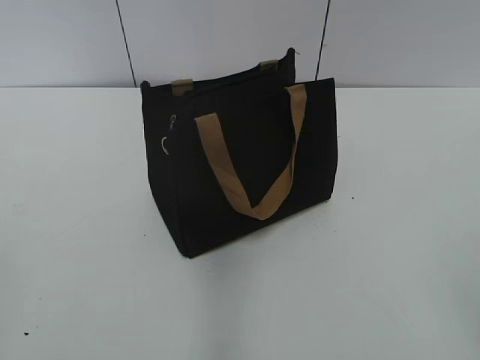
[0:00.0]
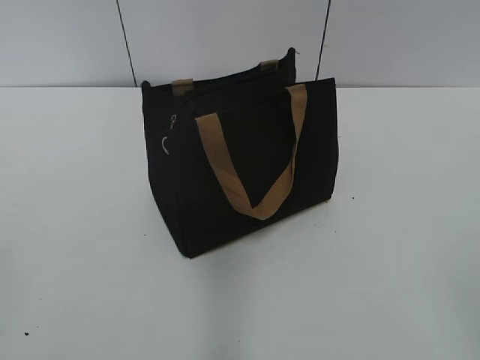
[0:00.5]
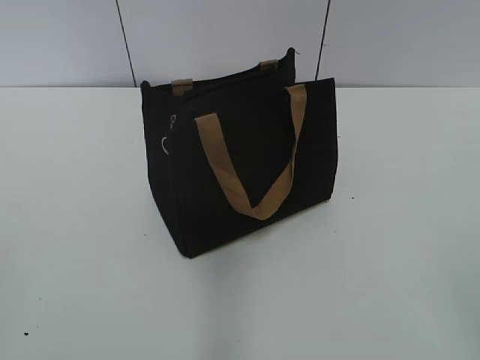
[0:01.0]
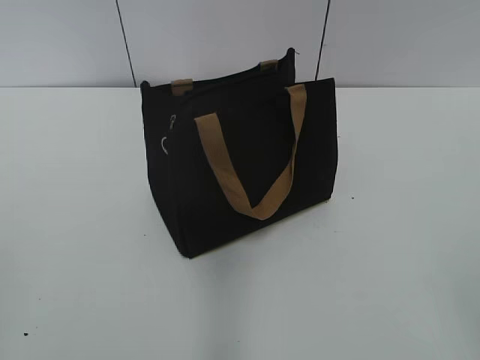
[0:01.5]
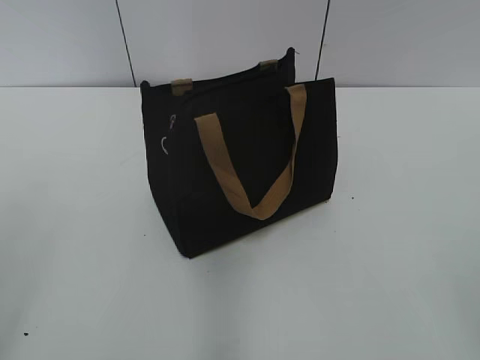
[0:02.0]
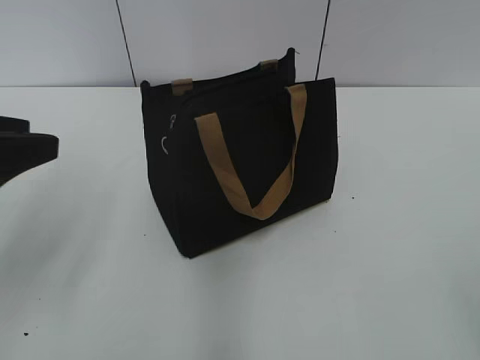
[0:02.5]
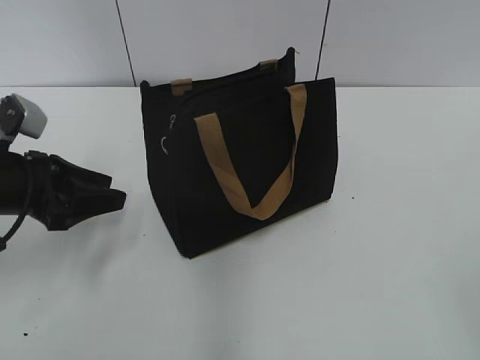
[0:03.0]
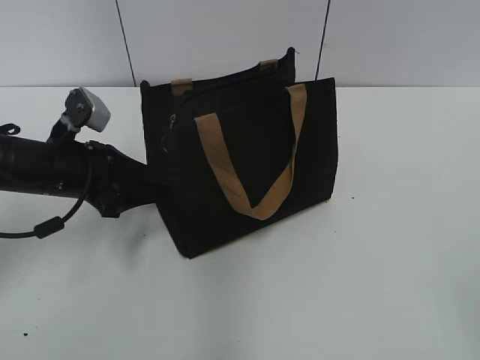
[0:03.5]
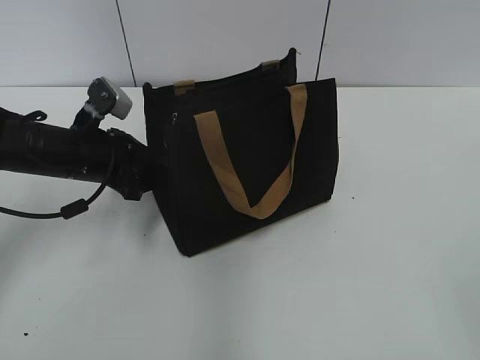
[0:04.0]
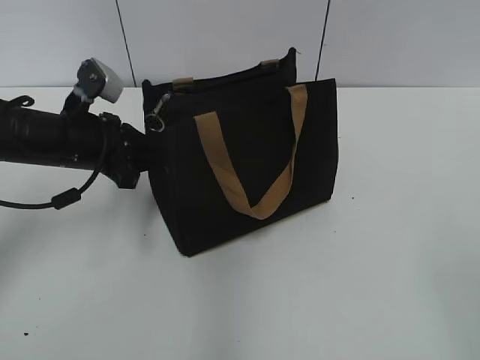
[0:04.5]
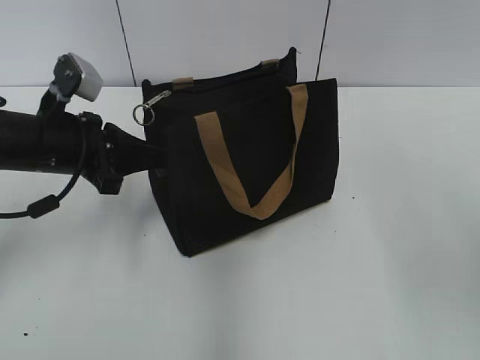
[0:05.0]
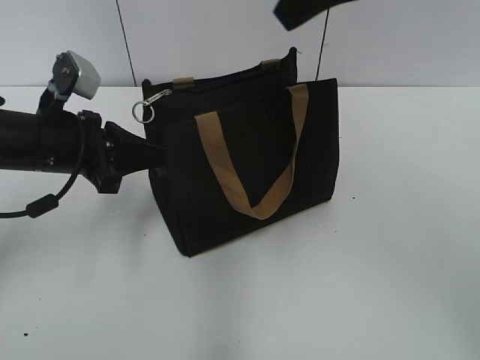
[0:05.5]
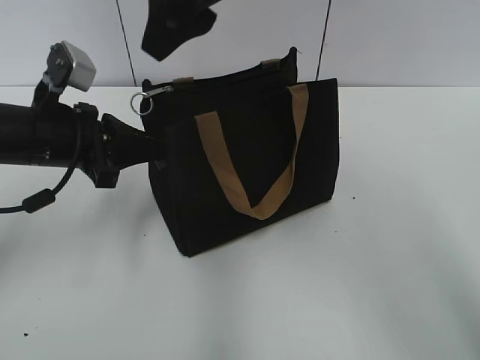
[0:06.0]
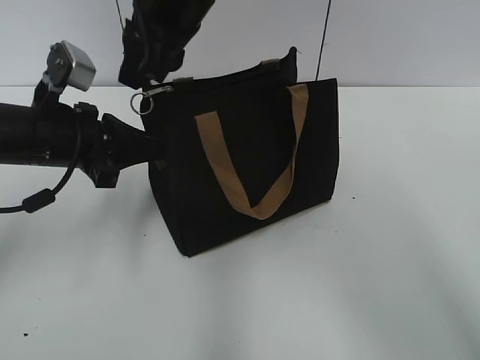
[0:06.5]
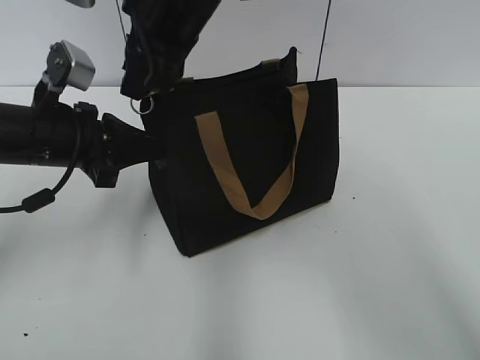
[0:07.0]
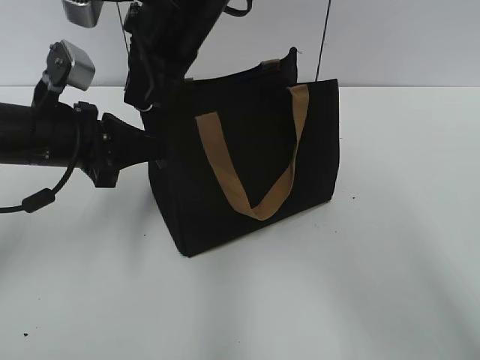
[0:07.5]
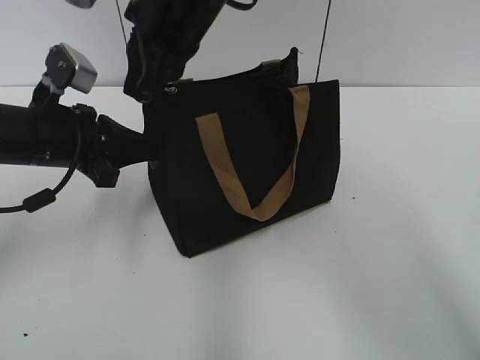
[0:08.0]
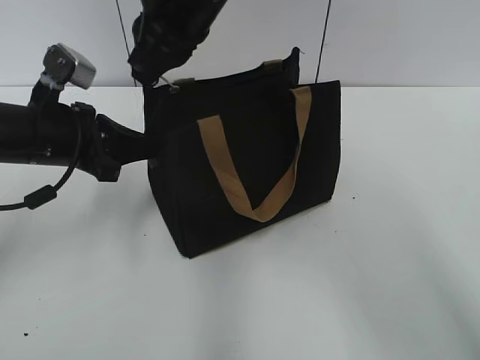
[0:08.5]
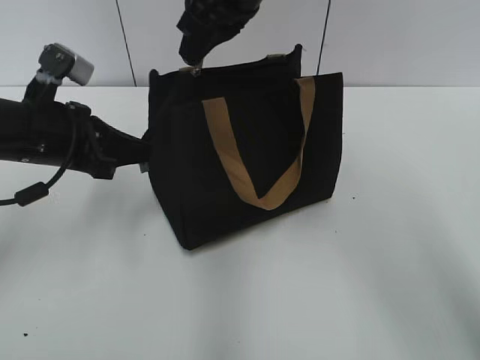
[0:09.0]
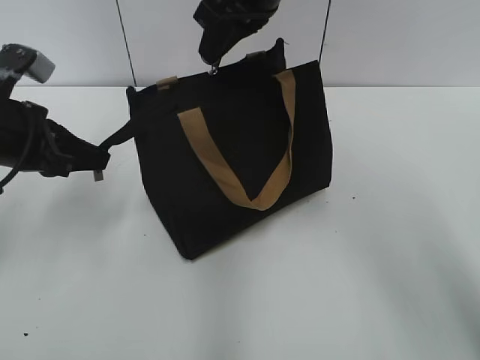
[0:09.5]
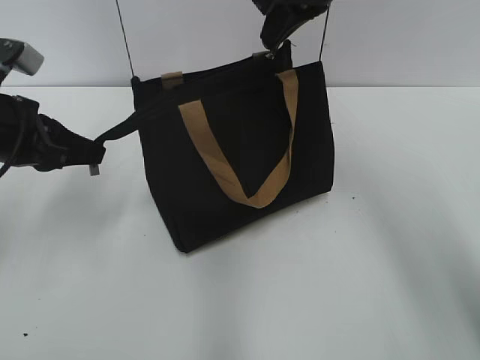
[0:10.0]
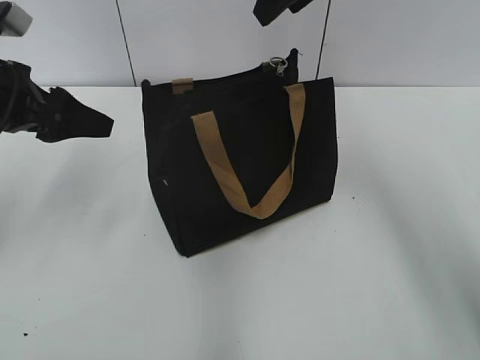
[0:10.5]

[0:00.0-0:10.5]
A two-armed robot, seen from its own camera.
Step, 0:00.0 to 0:10.0: Zip up the bag with your right hand.
0:02.0 to 0:04.0: The left gripper moves forward and downward, some 35 cm.
0:04.0 to 0:06.5: The right gripper travels forward and to the left by about 50 cm, while the left gripper heads upward, covering about 5 cm, and closes up.
0:06.5 to 0:08.5: The right gripper closes.
0:08.5 to 0:10.5: The left gripper moves roughly 5 cm, and opens. The right gripper moves to the right and forward, about 15 cm, and opens up.

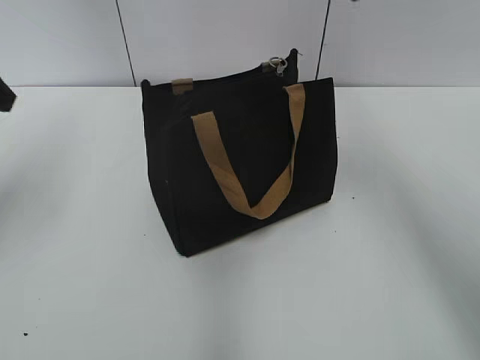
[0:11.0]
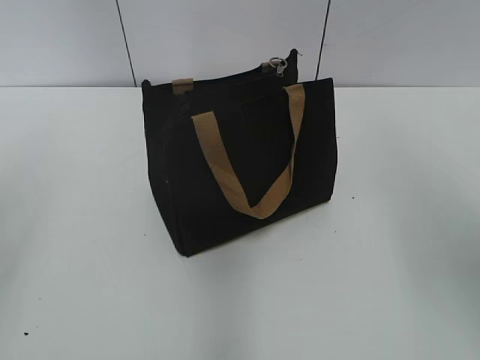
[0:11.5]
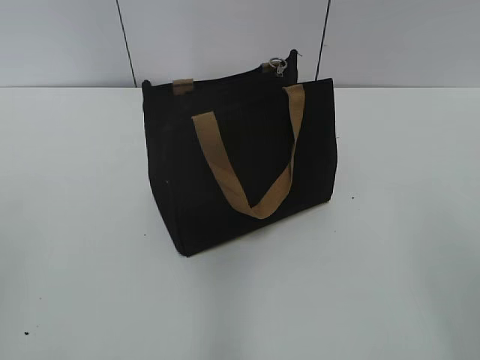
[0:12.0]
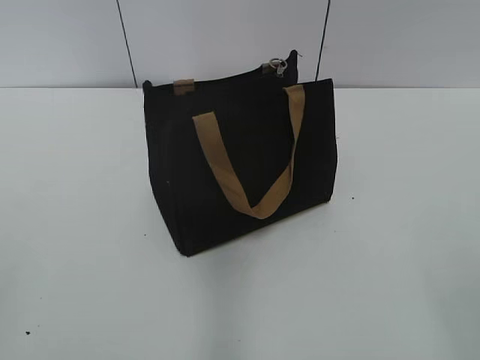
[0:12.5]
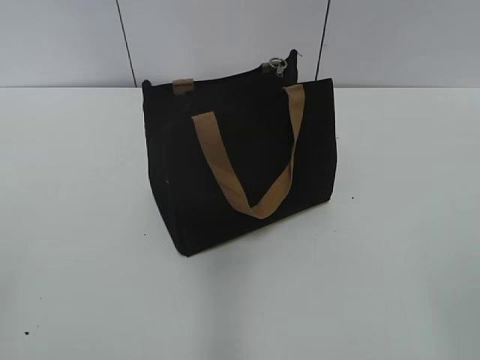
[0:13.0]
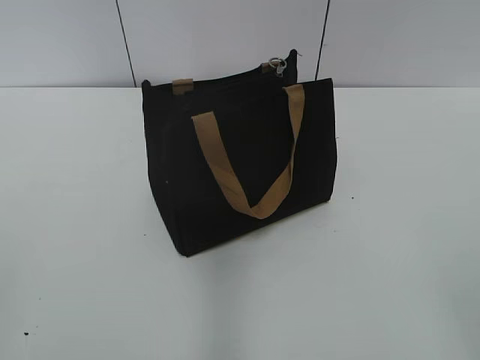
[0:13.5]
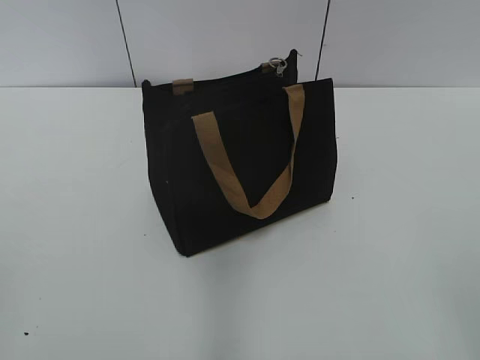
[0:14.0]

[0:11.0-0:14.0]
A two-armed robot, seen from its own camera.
0:11.0 to 0:12.5: The two grippers go about 35 cm backward.

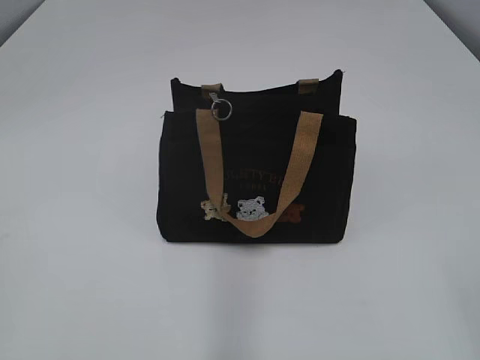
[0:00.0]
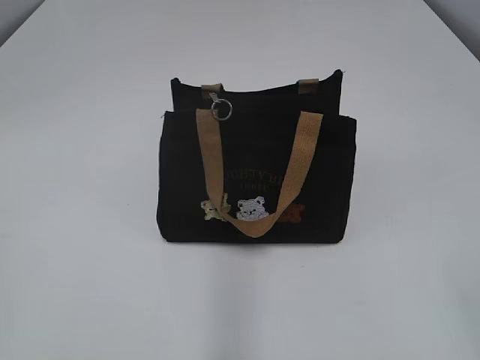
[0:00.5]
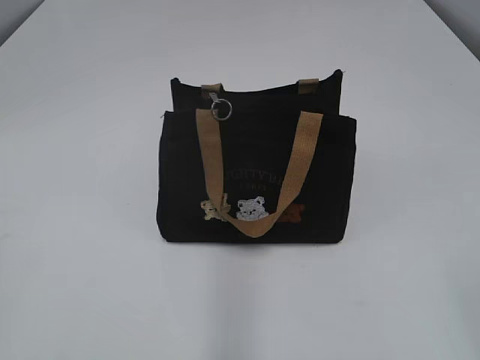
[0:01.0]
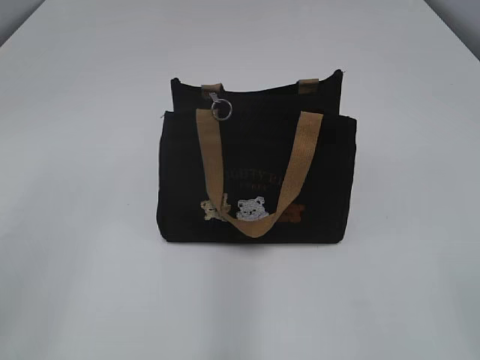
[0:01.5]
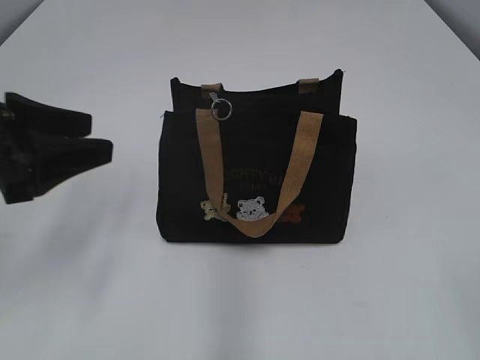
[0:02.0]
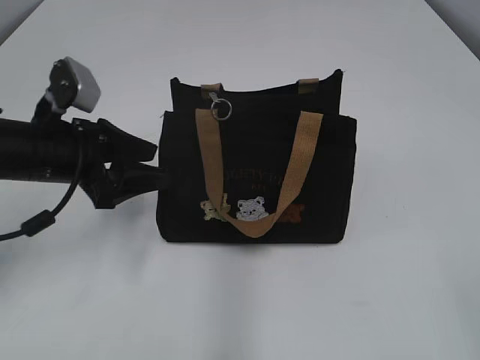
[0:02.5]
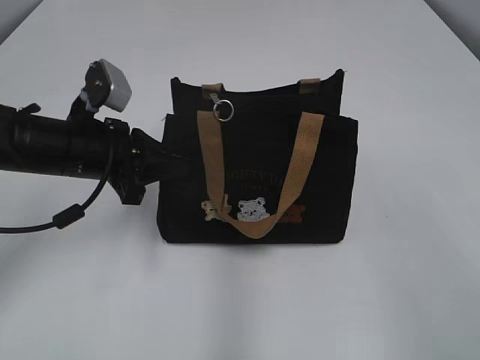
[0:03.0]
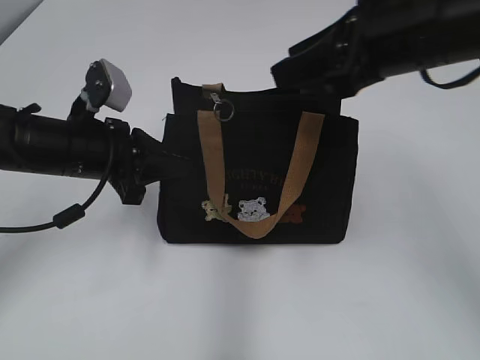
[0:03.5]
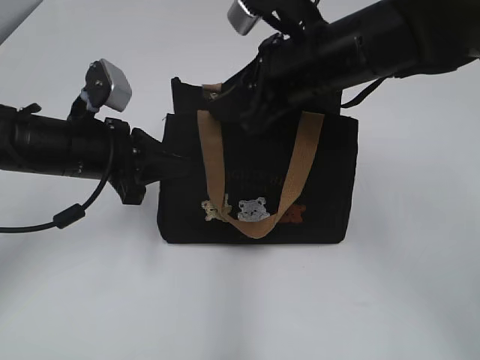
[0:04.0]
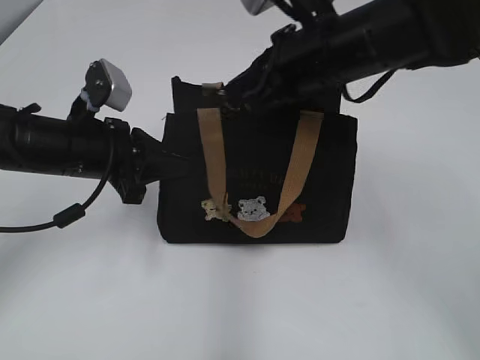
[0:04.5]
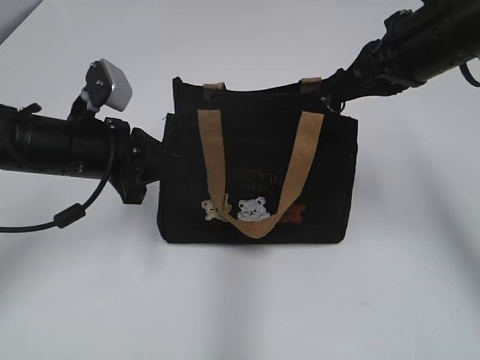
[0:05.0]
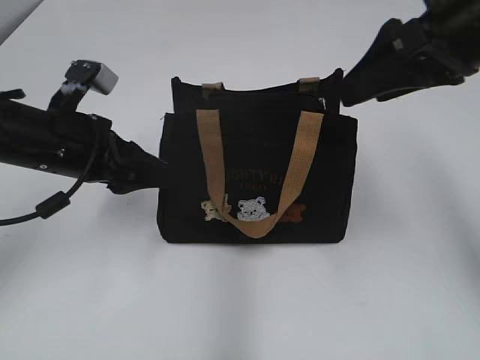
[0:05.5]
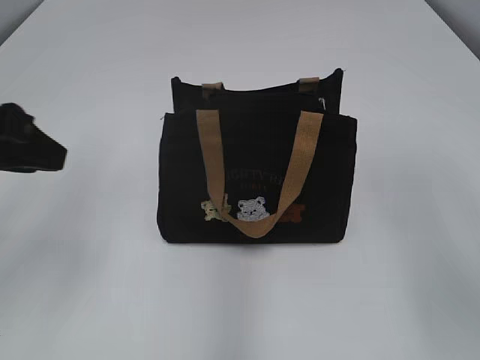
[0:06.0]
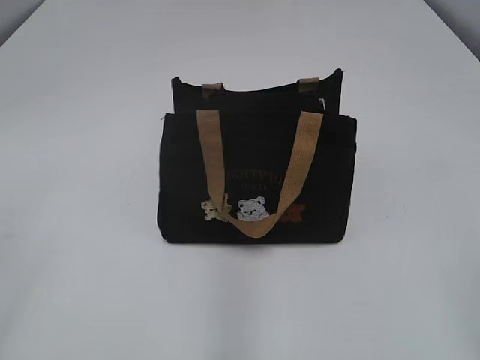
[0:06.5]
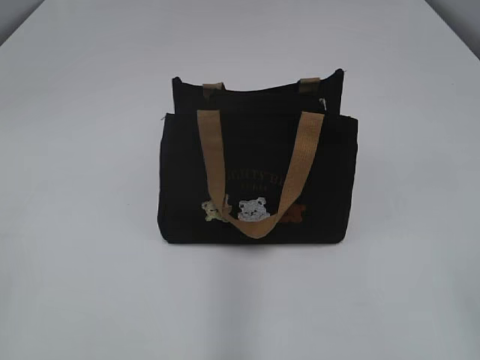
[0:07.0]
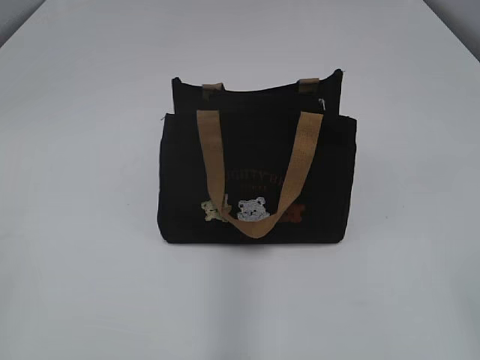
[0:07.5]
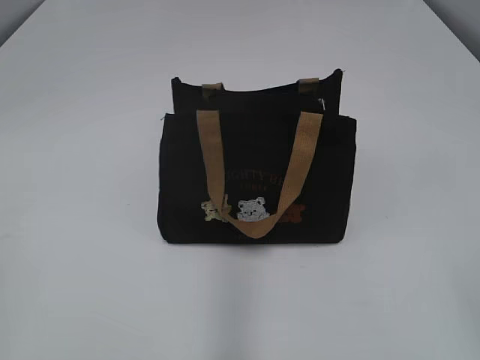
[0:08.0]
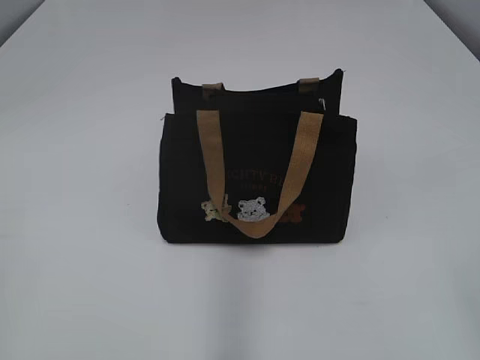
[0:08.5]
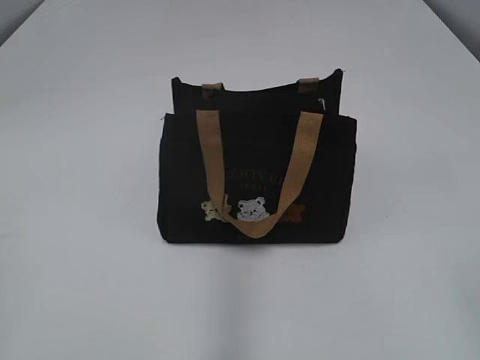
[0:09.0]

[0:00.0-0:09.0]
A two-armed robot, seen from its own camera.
Step, 0:00.0 to 0:05.0: Pull open the zipper with your right hand.
0:02.0 to 0:04.5: The left gripper heads forward, downward and to the right, covering about 20 cm, and closes its fingers; the right gripper goes some 40 cm forward and to the left, and closes up.
0:04.5 to 0:07.0: The left gripper is displaced backward and to the left by approximately 35 cm, and opens, while the right gripper moves backward and to the right, approximately 40 cm, and opens its fingers.
